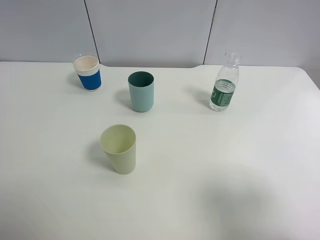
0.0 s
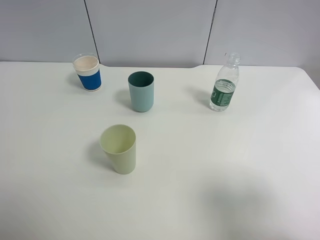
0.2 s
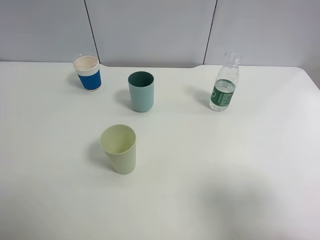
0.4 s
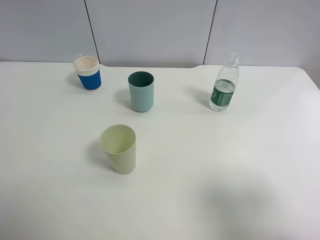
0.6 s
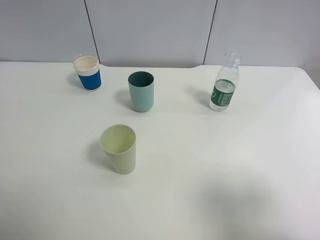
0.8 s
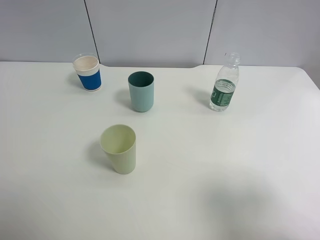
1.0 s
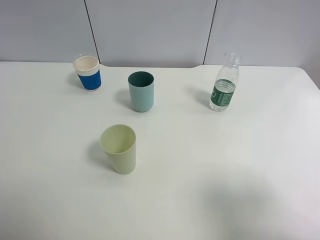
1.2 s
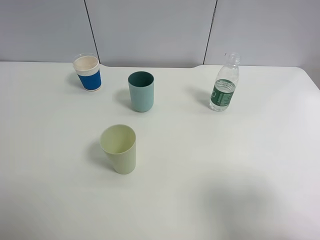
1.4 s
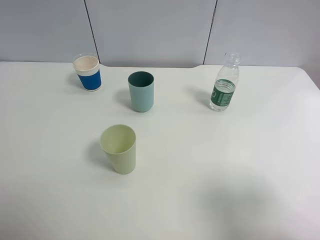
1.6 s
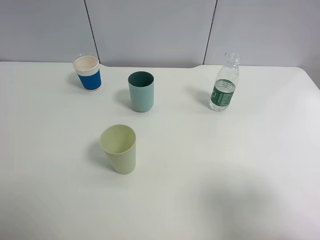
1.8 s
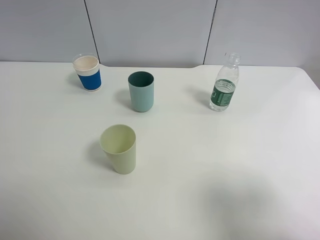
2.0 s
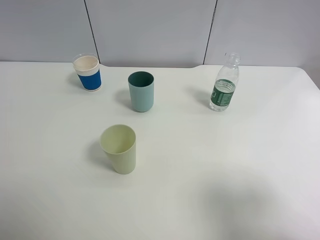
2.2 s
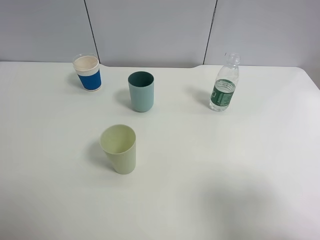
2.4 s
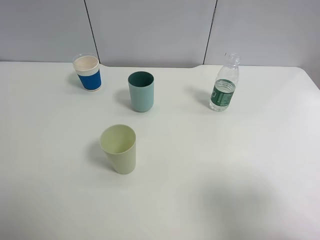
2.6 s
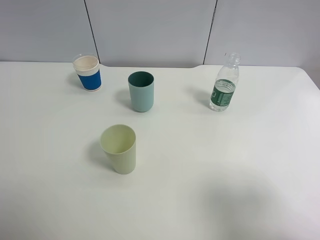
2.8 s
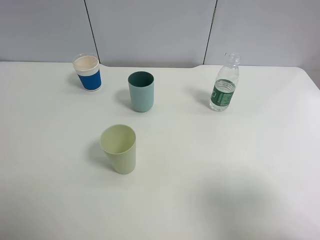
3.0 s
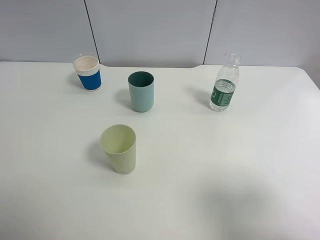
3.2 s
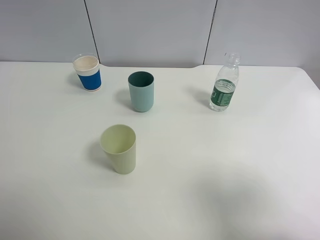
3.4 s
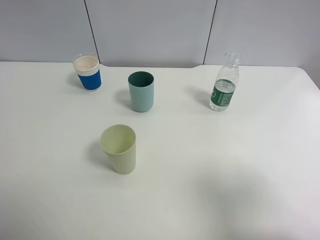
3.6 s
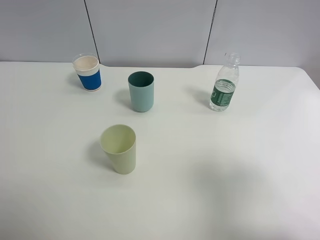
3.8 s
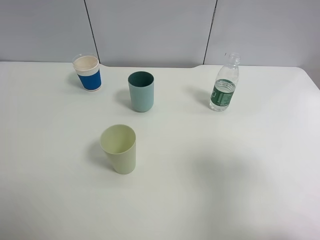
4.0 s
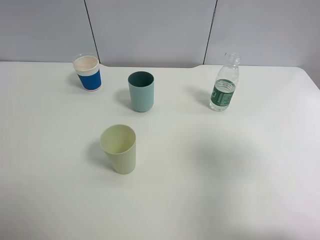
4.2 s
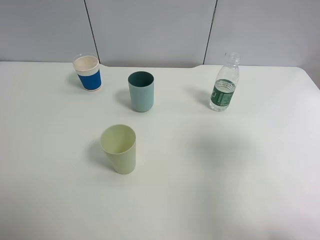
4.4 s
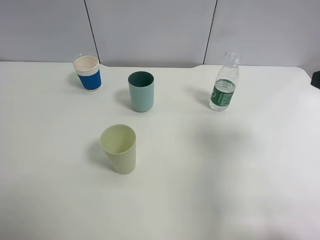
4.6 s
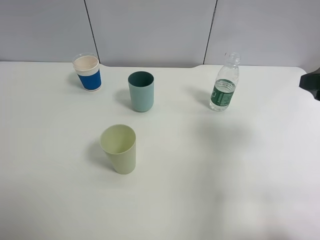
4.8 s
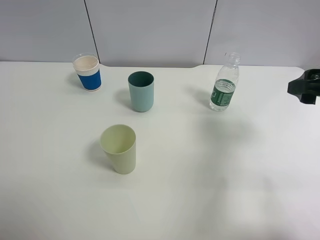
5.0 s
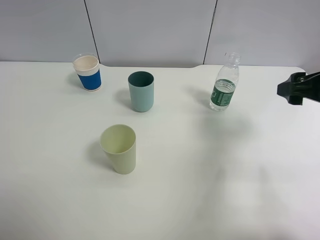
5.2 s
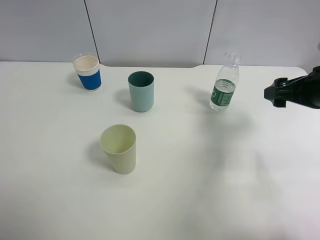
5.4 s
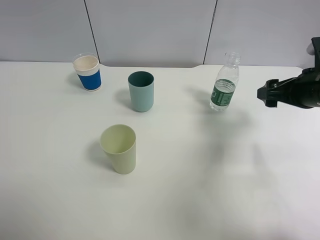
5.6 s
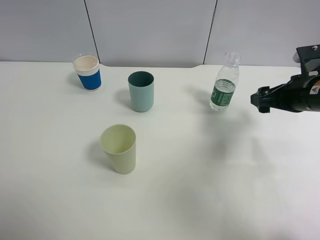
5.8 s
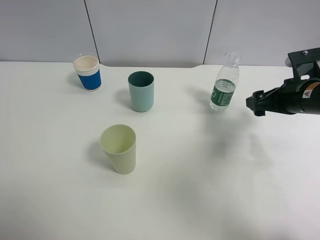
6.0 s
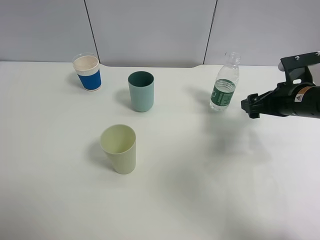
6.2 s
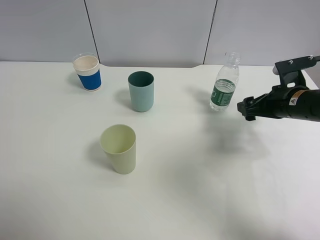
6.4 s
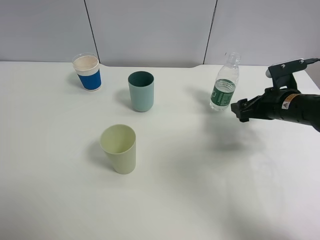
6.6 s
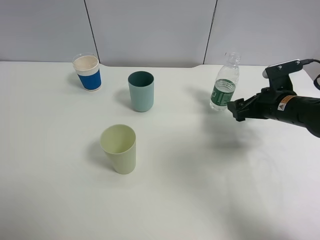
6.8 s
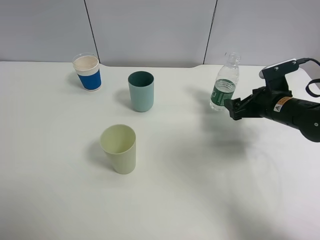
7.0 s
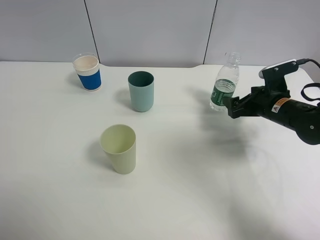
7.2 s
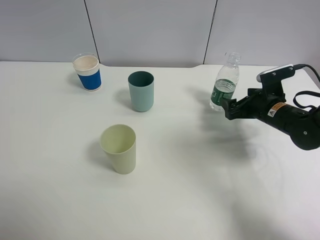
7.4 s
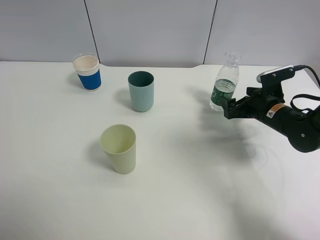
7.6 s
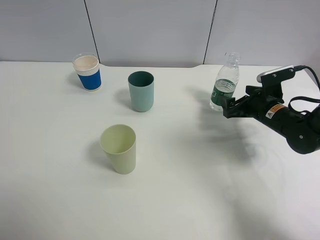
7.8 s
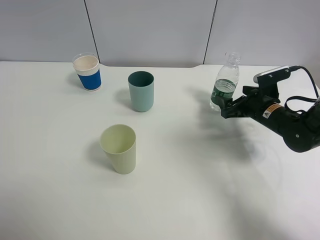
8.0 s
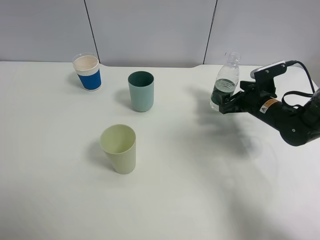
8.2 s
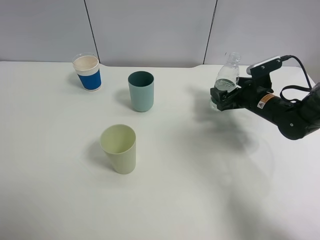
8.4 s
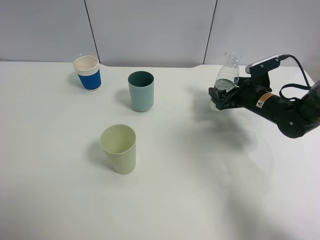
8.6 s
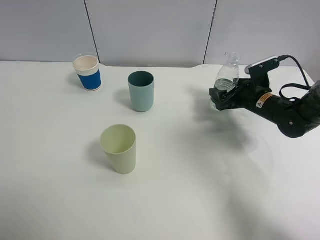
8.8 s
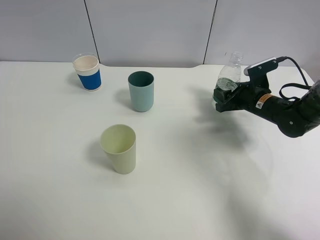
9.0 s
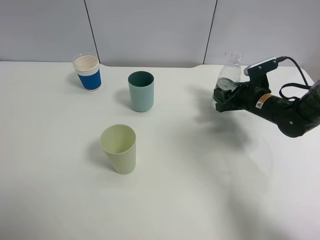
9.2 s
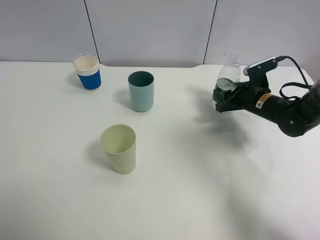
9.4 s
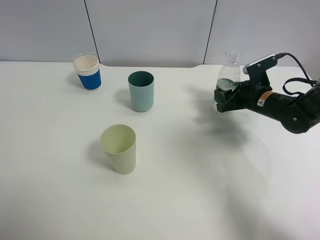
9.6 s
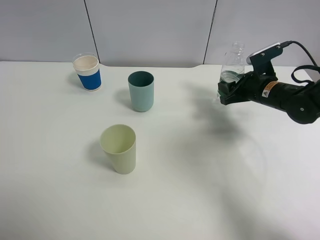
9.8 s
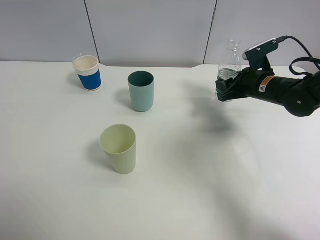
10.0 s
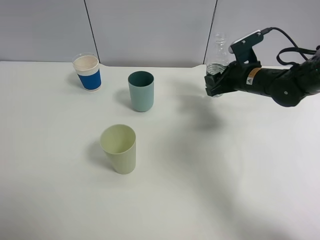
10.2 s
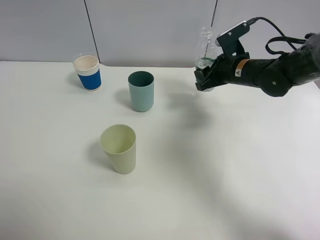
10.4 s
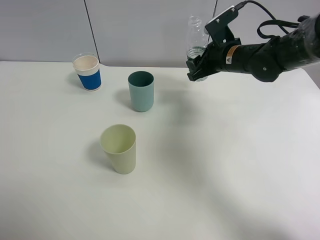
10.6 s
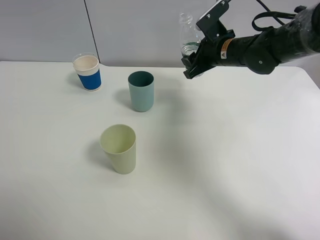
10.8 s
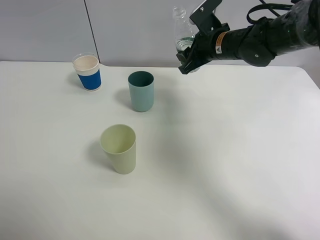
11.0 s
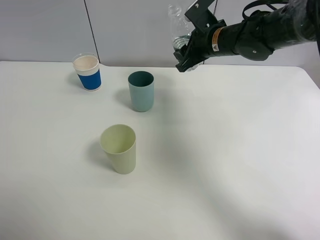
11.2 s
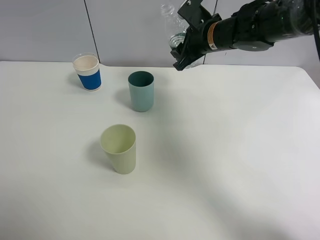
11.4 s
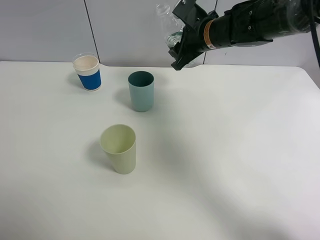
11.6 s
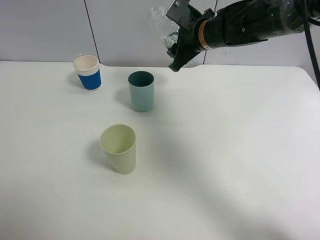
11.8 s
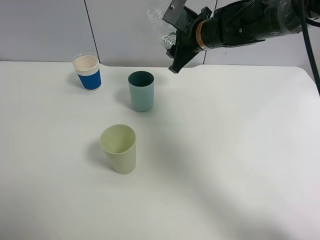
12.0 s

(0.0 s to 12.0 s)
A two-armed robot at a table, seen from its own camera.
Task of the whole recording: use a clamp to hold the bottle of the drink, pour the beverage into a random cup, then clamp the cup containing the drink and pour the drink into another random cup.
Step, 0.0 s - 11.2 s: Pick up the water bottle with right gripper.
0.0 s - 3.0 s: Neither gripper changes place.
3.0 s - 4.4 s: The right gripper is displaced forward by some 10 cm.
4.4 s - 6.0 s: The right gripper is displaced forward and downward by about 20 cm.
6.0 s - 7.6 s: The right gripper is displaced downward by some 10 cm.
7.6 s - 9.0 s: The right gripper closes up.
9.0 s - 10.4 s: The right gripper shifts roughly 10 cm upward and to the left.
10.4 s - 12.0 s: The right gripper goes approximately 10 cm to the left and upward.

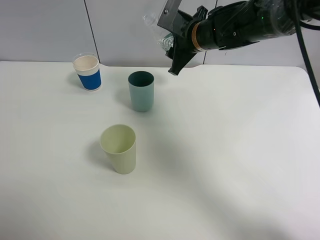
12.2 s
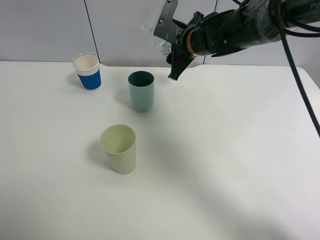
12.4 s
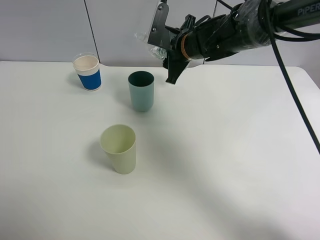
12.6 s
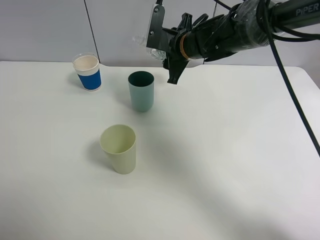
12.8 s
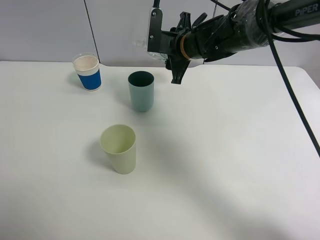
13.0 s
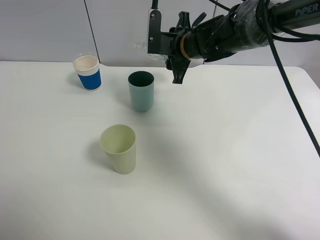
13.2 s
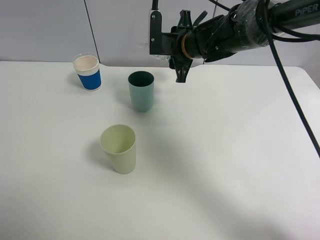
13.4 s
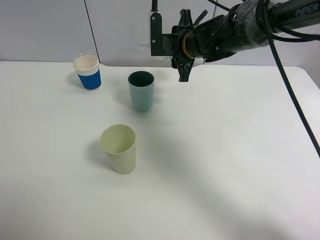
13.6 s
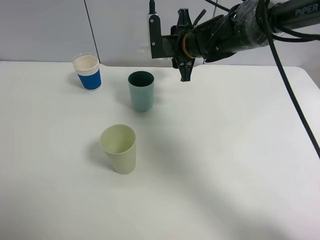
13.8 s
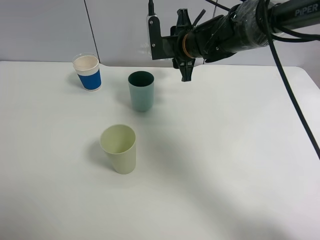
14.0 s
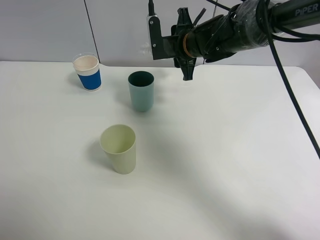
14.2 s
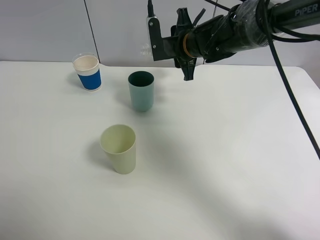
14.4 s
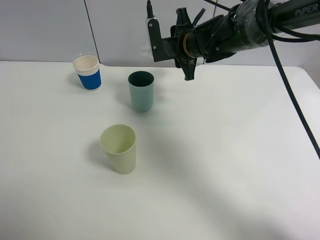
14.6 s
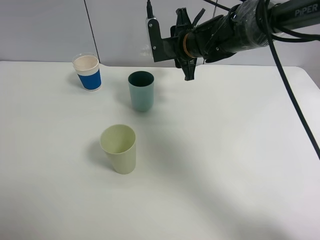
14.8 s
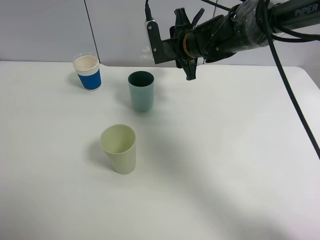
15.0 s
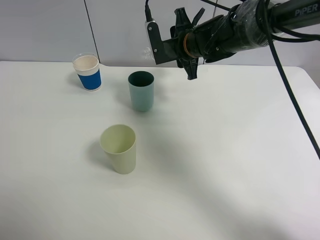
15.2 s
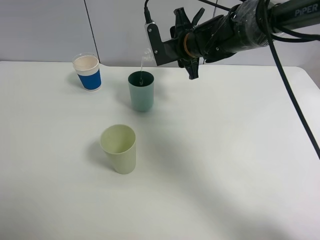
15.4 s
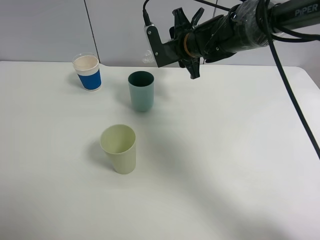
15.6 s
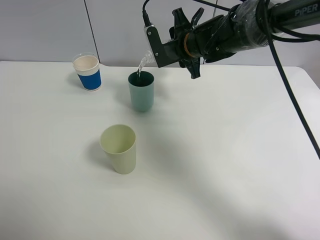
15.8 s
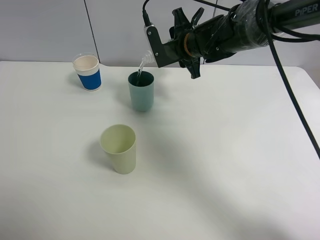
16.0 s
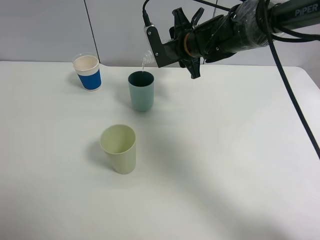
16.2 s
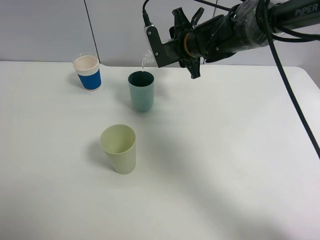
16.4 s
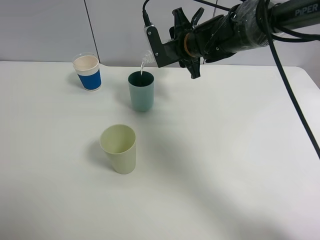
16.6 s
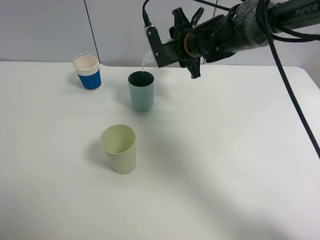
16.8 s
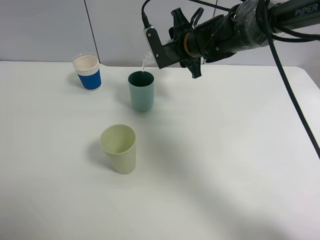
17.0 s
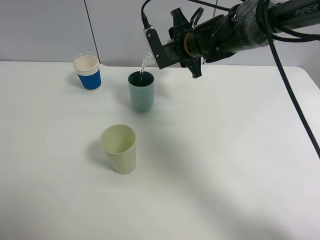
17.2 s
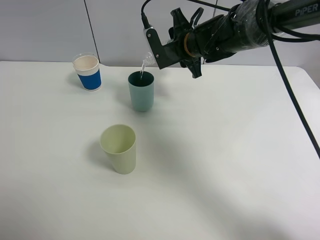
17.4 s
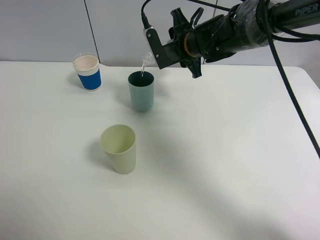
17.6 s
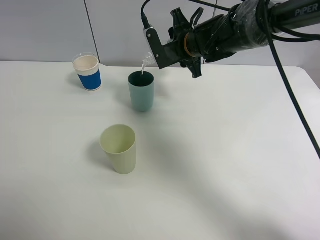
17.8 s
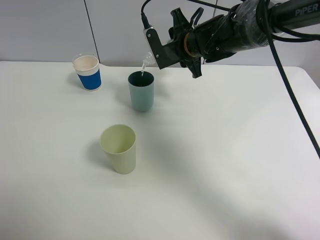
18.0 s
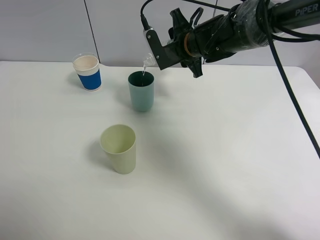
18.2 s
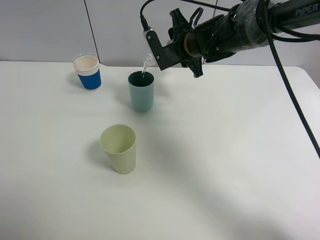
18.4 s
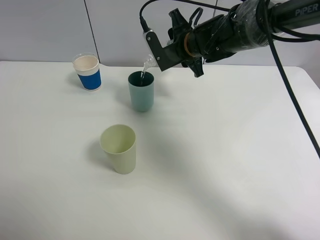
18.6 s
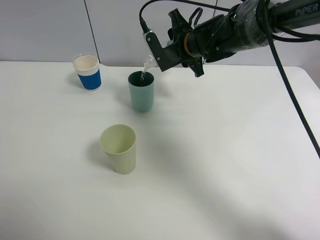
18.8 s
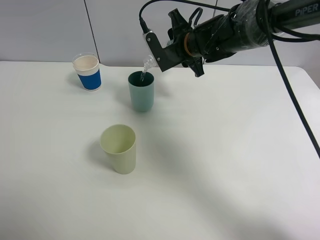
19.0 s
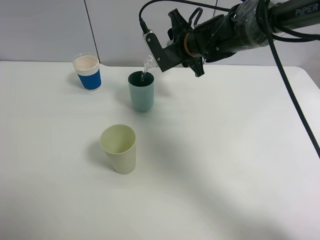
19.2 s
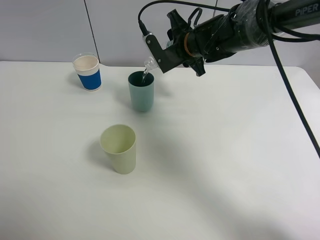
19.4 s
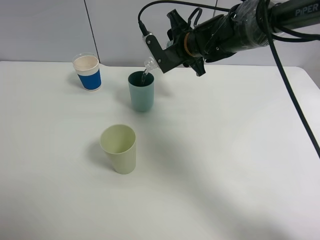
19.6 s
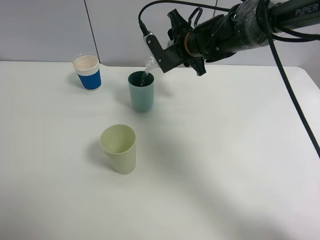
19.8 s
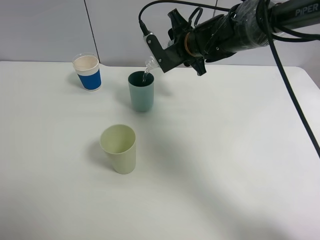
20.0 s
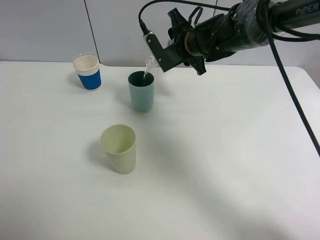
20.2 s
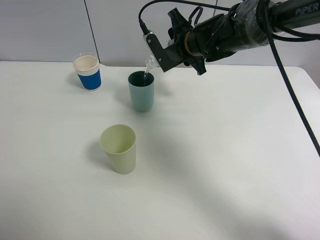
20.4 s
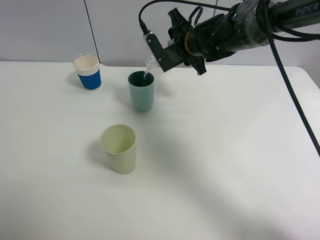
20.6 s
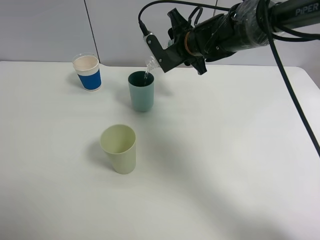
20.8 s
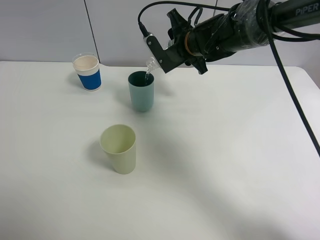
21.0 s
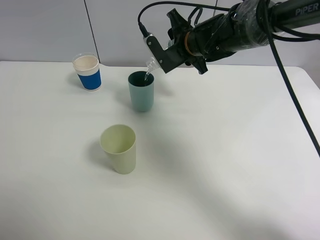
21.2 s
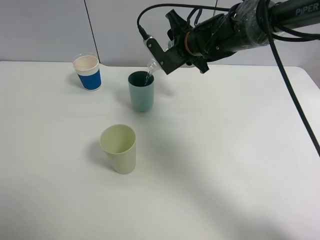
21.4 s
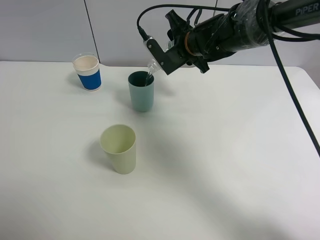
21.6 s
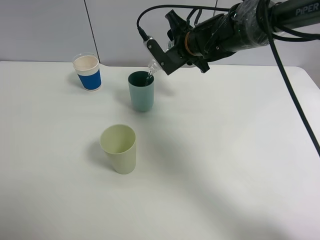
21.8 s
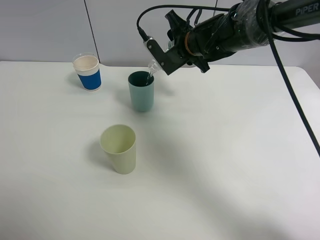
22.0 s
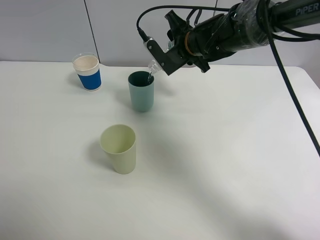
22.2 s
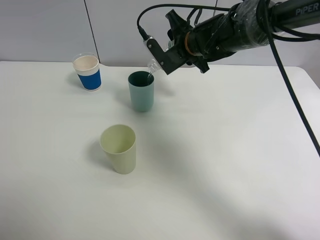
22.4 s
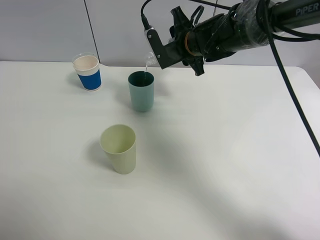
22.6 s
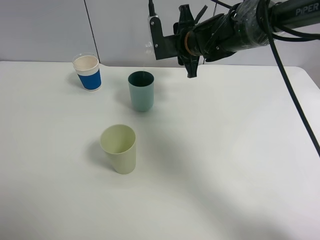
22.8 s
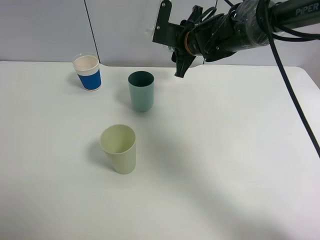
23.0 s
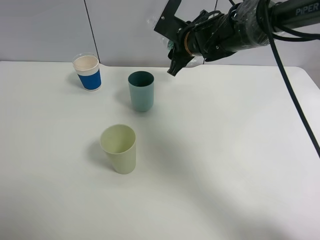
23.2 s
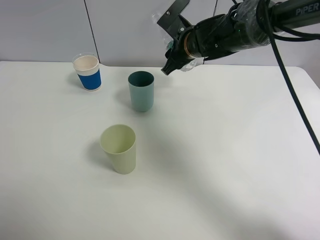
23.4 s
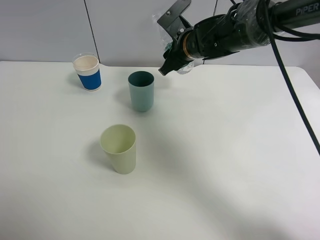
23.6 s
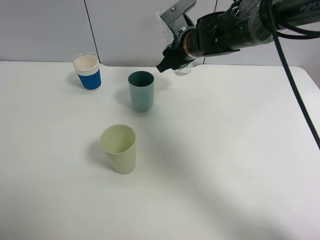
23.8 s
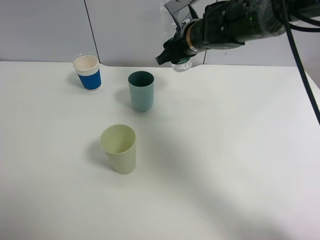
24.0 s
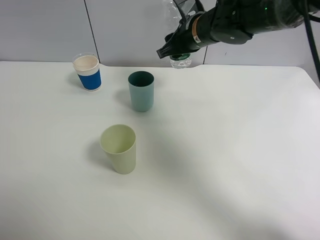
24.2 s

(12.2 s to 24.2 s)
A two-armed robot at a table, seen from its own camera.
Task of the whole recording: use a clamp to hold the bottle of the drink, pour the beverage into a random cup, then clamp the cup containing the drink and pour the drink into another random cup.
13.8 s - 16.6 s: The grippers move only a little.
16.6 s - 18.2 s: The two grippers keep their place.
18.2 s - 19.8 s: The grippers move only a little.
19.8 s - 21.2 s: Both grippers stay put.
21.2 s - 22.6 s: The grippers make only small movements.
